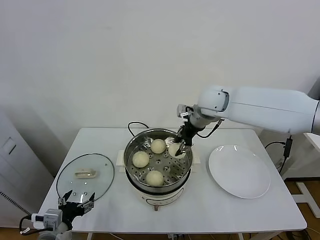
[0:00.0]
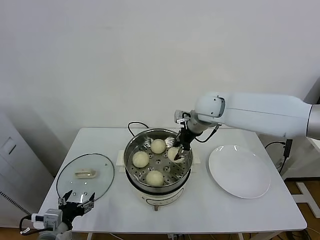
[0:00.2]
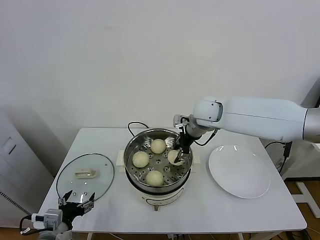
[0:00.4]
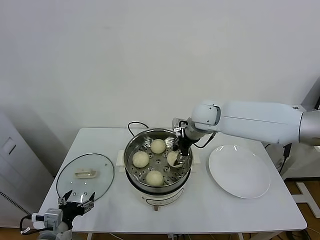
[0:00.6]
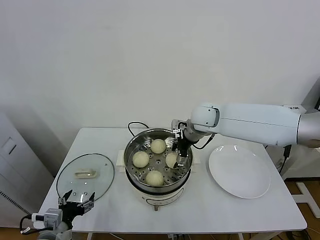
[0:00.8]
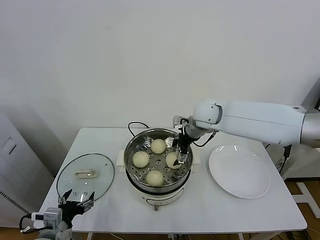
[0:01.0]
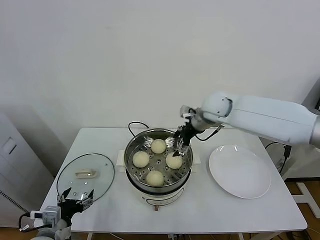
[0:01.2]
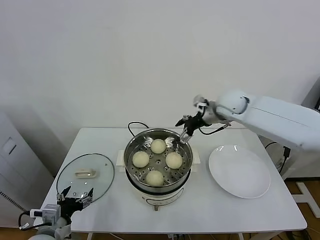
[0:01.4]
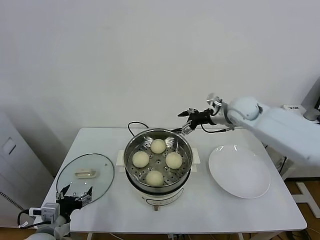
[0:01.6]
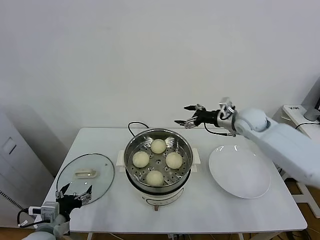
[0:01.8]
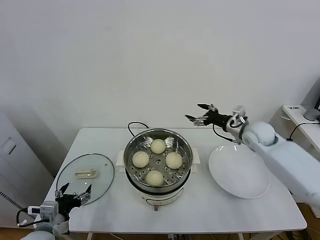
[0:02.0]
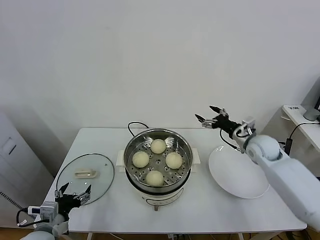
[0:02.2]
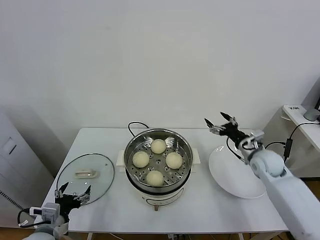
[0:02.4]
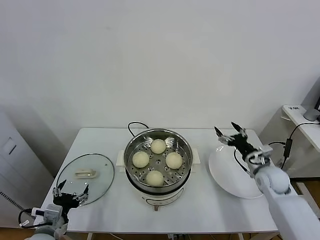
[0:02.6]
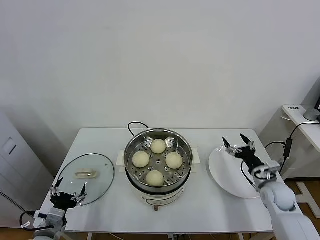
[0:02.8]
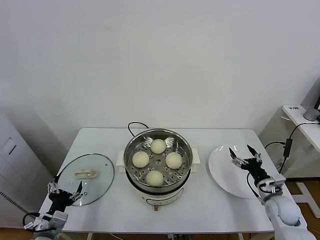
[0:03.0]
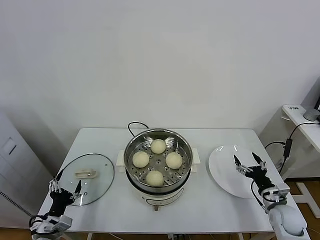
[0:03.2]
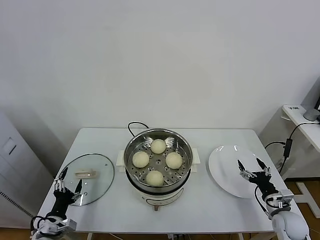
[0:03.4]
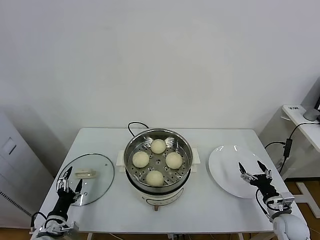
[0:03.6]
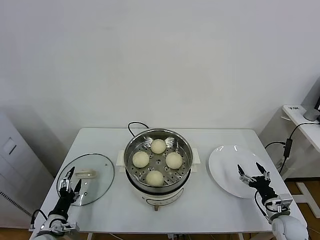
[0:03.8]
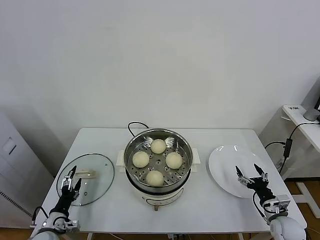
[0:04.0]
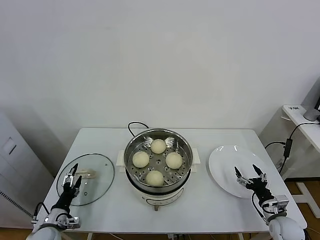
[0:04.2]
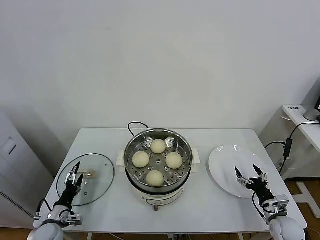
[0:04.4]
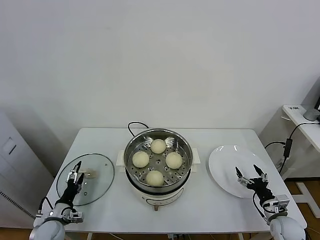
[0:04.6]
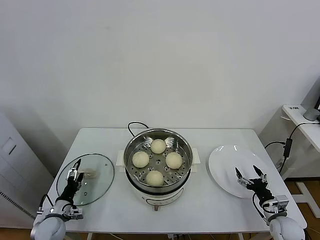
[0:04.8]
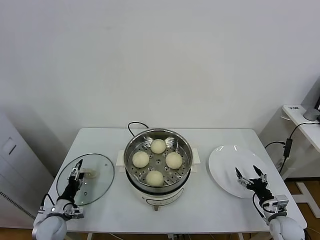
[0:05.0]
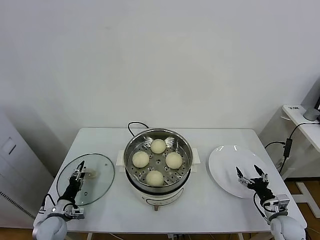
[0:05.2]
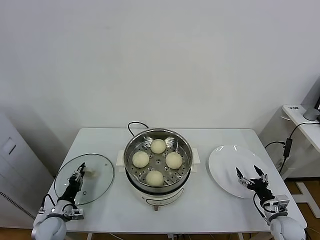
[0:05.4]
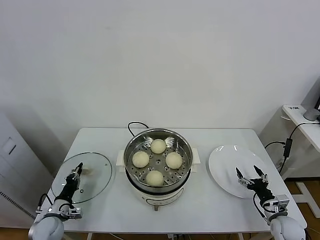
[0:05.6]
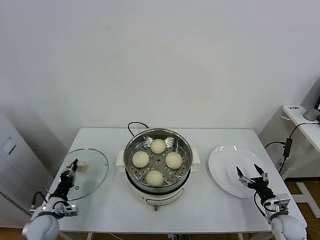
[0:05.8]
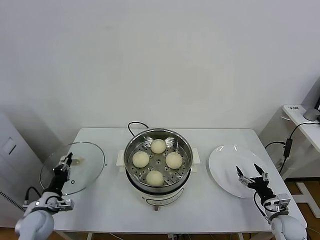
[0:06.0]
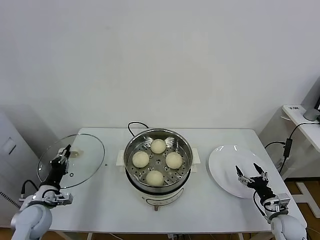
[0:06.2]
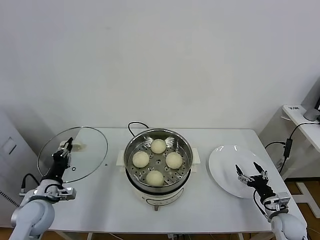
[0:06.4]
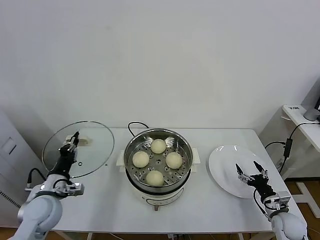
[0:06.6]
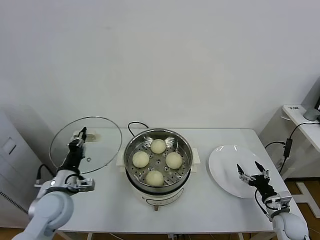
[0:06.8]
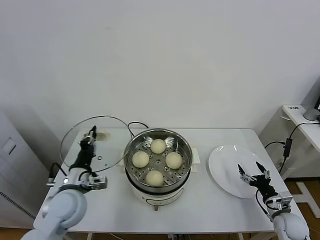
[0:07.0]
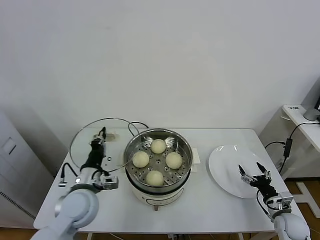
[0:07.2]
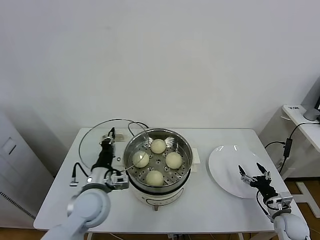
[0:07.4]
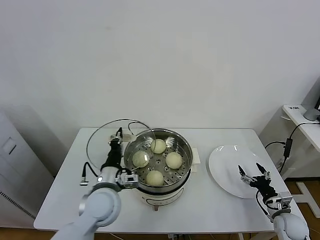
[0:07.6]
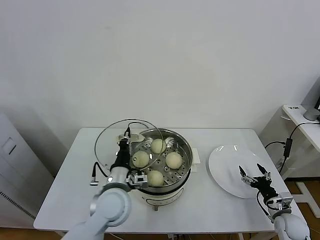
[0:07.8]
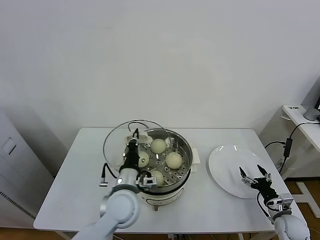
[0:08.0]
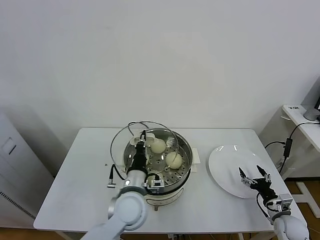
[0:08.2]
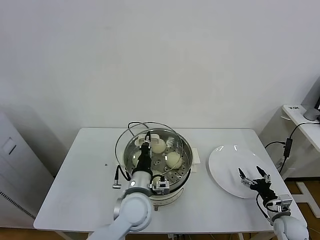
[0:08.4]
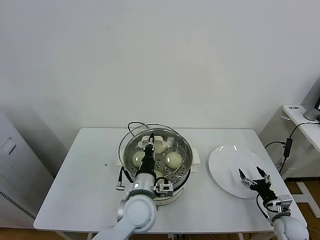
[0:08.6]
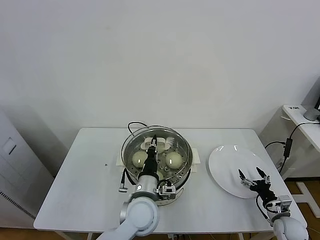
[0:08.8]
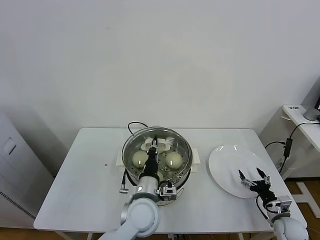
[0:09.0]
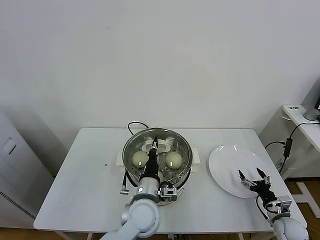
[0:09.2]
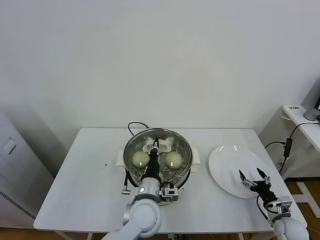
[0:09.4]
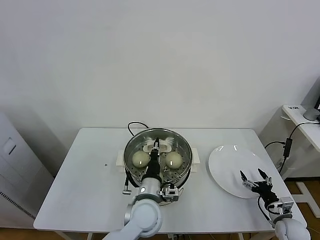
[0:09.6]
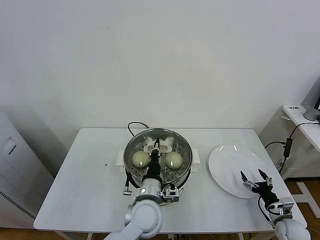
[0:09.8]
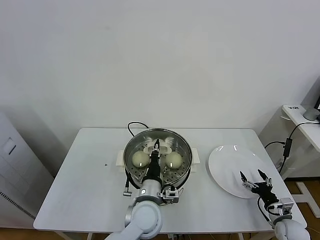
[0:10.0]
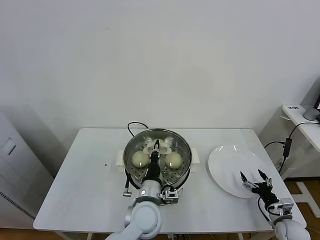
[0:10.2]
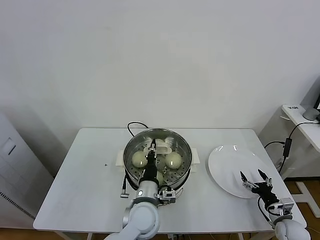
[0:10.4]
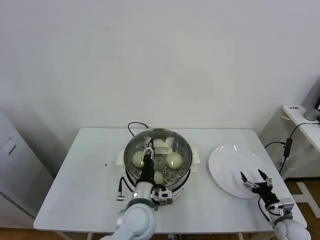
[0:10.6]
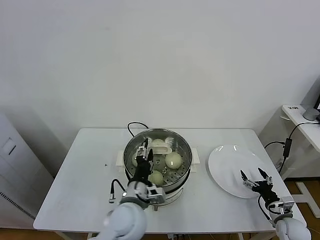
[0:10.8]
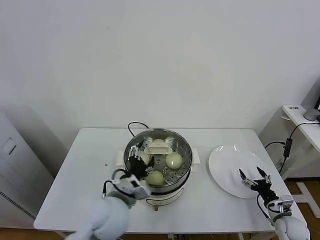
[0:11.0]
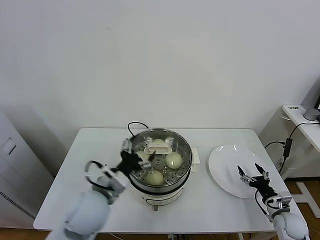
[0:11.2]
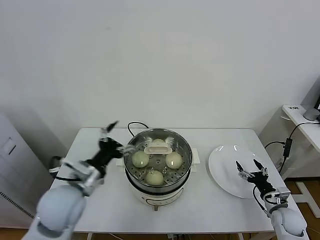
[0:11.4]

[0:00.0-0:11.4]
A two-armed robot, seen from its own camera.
Task of the whole recording: take steamed baozi put them in steamer.
Step, 0:01.2 to 0:05.6: Grasp the pot lid with left gripper.
Step, 0:06.0 to 0:11.0: Place the pot lid on the steamer with left gripper.
0:00.0 to 0:01.4: The right gripper moves to the right, roughly 5 cm, and opens up.
0:01.4 to 0:02.8: The right gripper shifts roughly 35 cm downward, backward and to the right.
0:02.8 to 0:04.2: The left gripper heads downward, covering some 10 cm, while the right gripper heads downward and backward, covering roughly 15 cm.
0:04.2 to 0:05.6: The left gripper closes up.
0:05.6 to 0:07.2: The left gripper goes approximately 25 cm upward and to the right.
0:07.2 to 0:08.6: The left gripper is displaced to the right by approximately 15 cm.
0:08.6 to 0:10.0: The grippers make only small movements.
0:10.0 to 0:11.4: The left gripper moves to the left and upward, about 20 cm, and opens up.

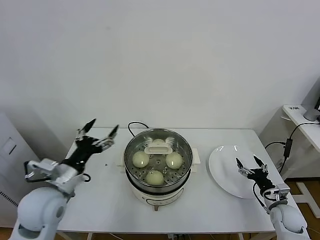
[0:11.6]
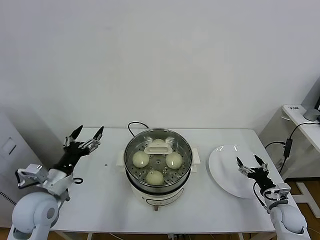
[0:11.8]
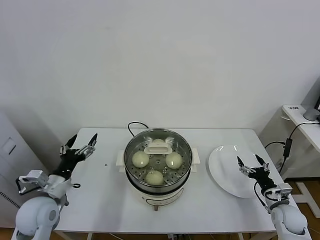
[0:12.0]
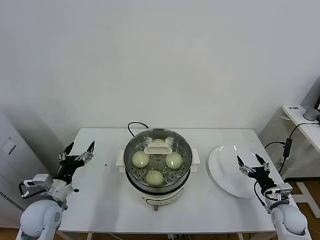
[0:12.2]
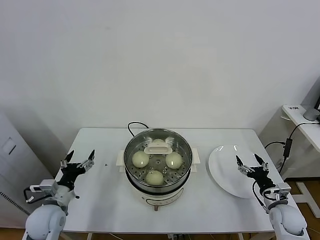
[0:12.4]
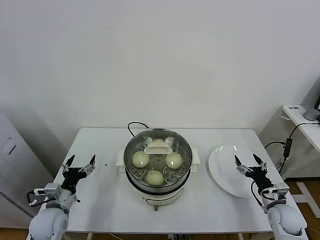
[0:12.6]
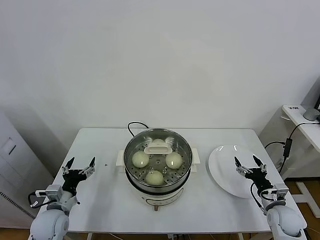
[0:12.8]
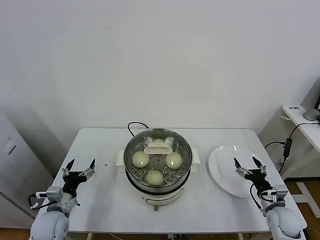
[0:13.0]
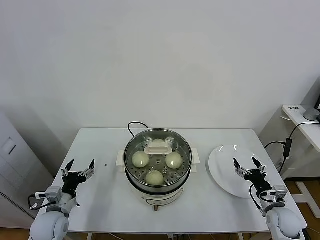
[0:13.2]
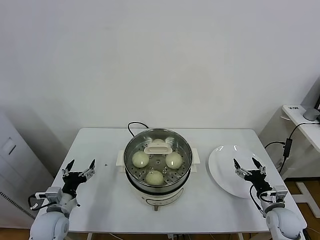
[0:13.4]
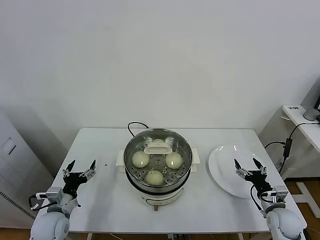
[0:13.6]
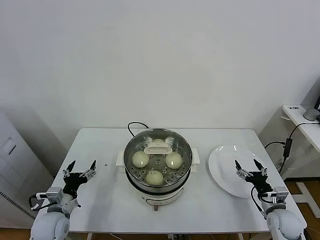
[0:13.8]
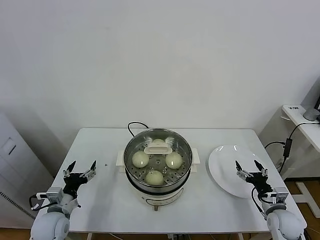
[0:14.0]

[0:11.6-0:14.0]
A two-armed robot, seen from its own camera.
Task of the whole recording: take steamed baozi put them in steamer.
0:11.6 to 0:12.8: The left gripper shifts about 20 cm downward and to the left.
0:12.8 to 0:14.0: The grippers stay close to where they were, moving slightly.
